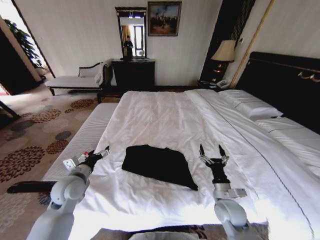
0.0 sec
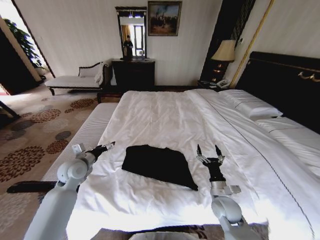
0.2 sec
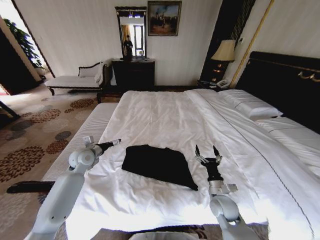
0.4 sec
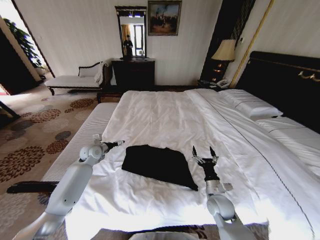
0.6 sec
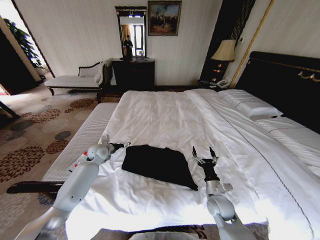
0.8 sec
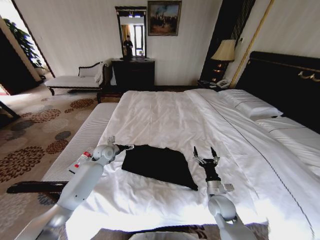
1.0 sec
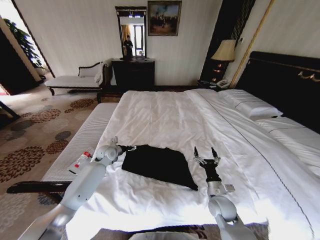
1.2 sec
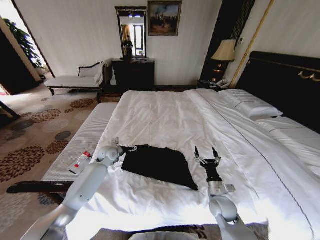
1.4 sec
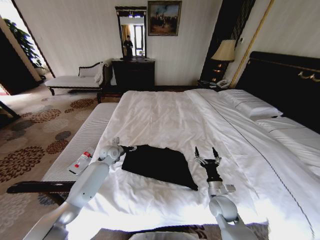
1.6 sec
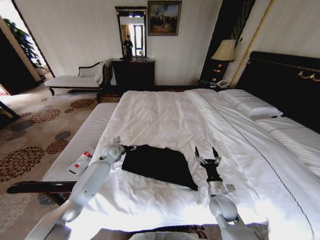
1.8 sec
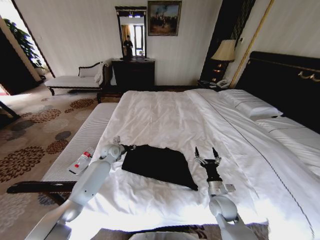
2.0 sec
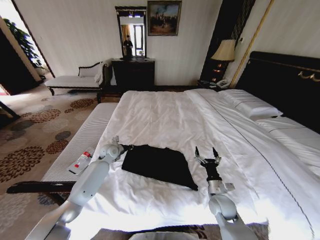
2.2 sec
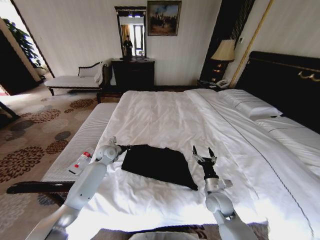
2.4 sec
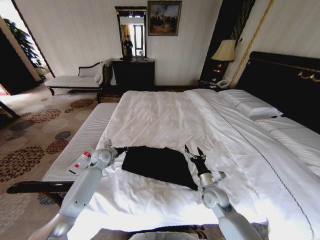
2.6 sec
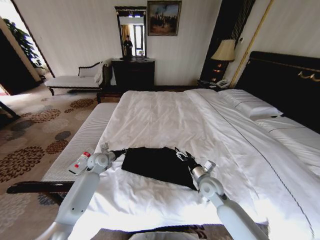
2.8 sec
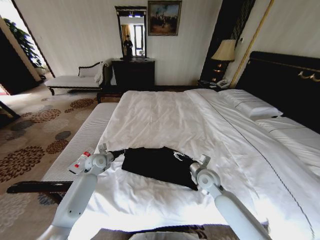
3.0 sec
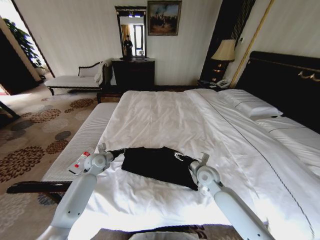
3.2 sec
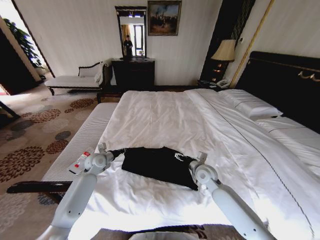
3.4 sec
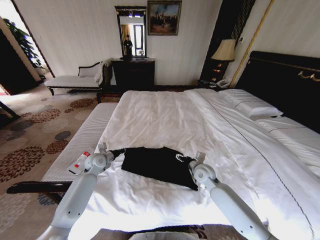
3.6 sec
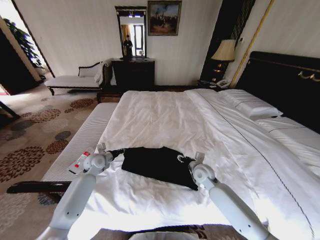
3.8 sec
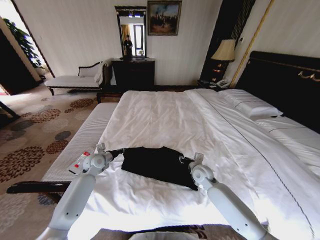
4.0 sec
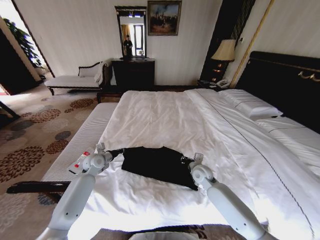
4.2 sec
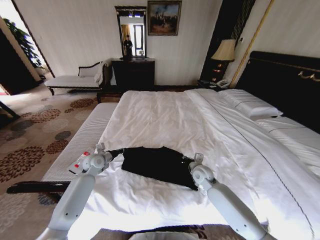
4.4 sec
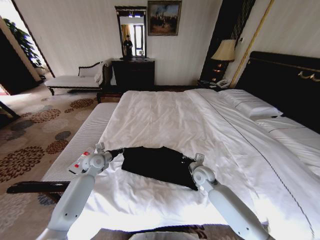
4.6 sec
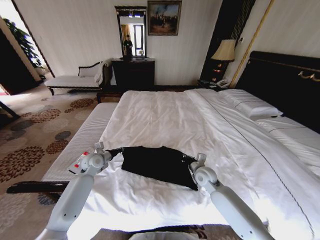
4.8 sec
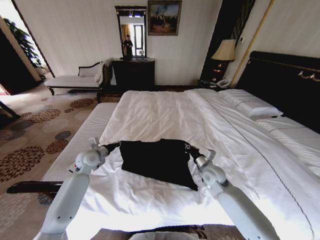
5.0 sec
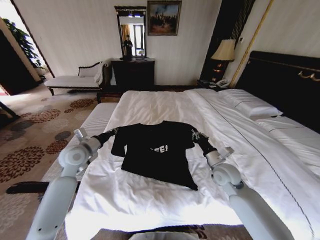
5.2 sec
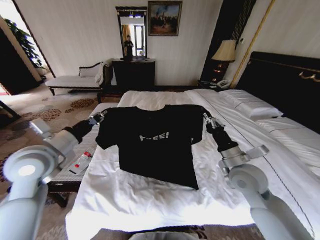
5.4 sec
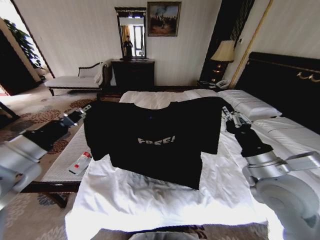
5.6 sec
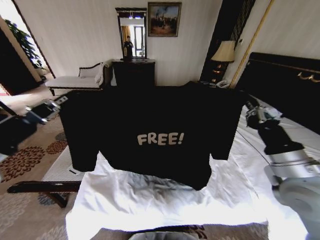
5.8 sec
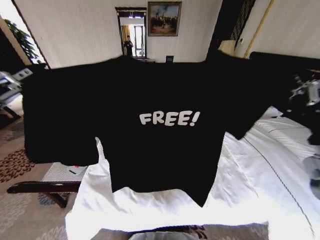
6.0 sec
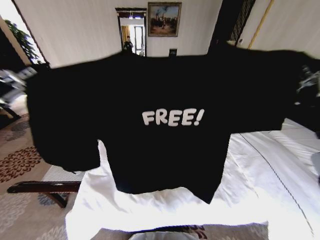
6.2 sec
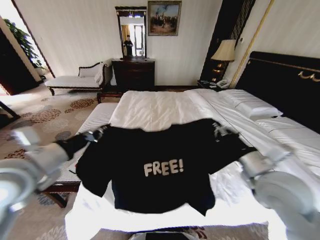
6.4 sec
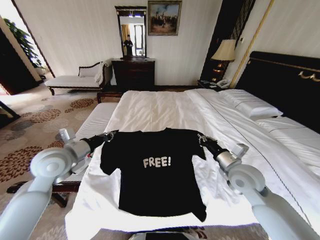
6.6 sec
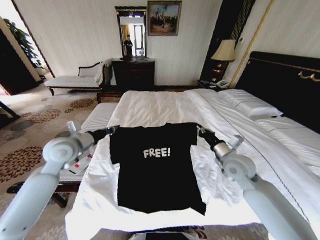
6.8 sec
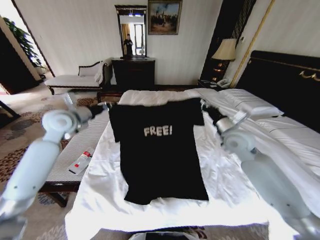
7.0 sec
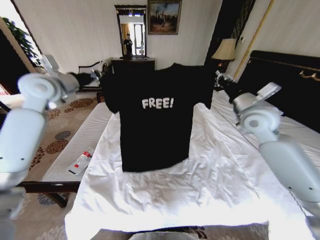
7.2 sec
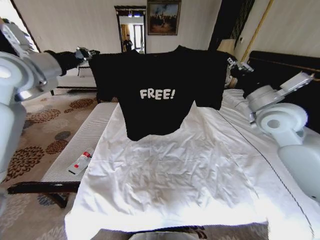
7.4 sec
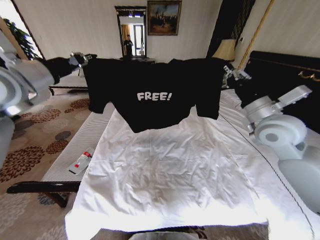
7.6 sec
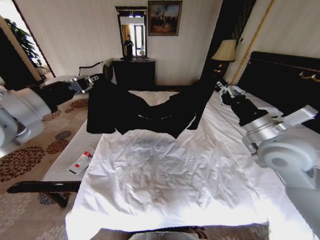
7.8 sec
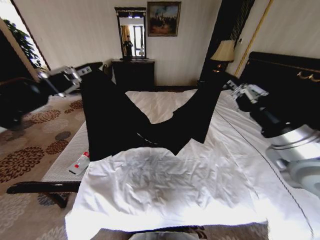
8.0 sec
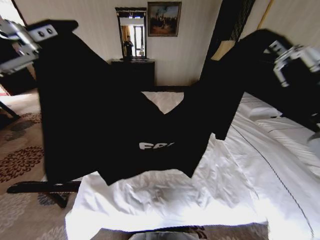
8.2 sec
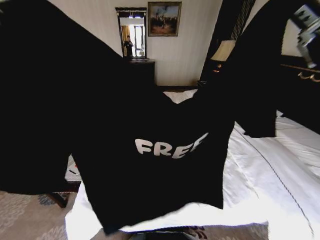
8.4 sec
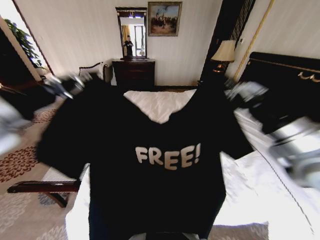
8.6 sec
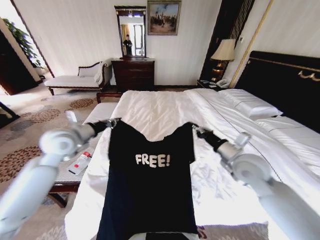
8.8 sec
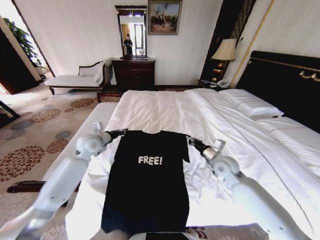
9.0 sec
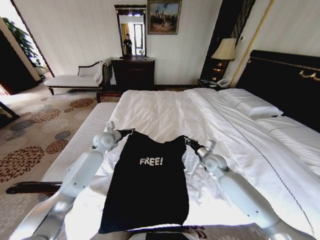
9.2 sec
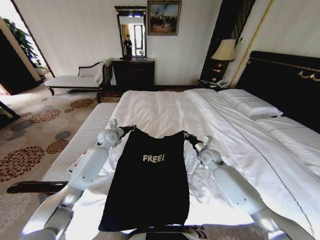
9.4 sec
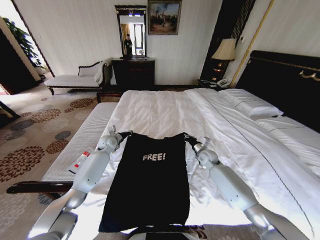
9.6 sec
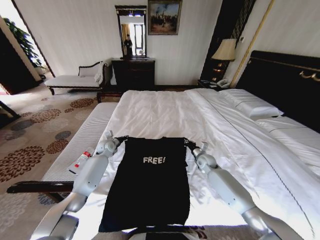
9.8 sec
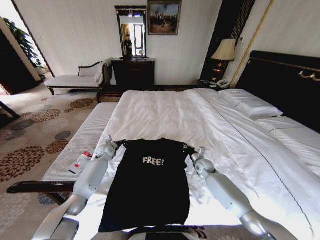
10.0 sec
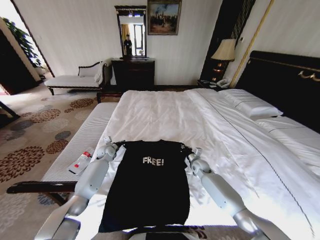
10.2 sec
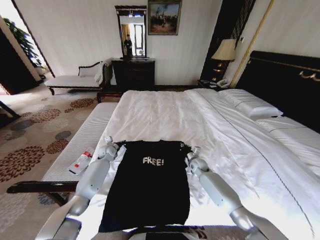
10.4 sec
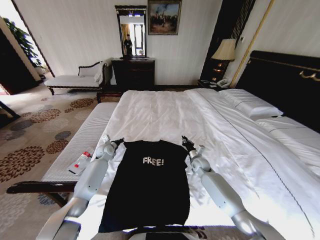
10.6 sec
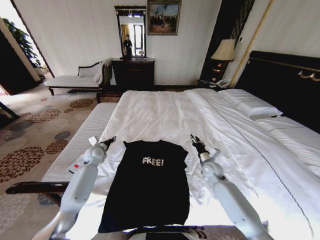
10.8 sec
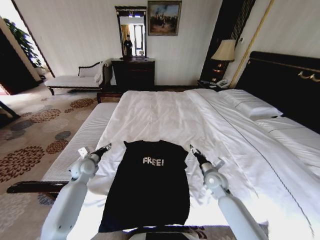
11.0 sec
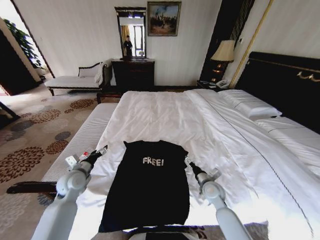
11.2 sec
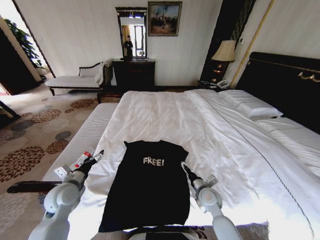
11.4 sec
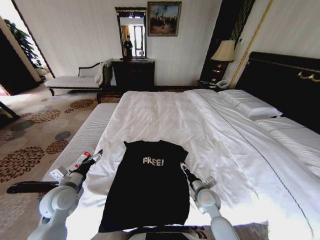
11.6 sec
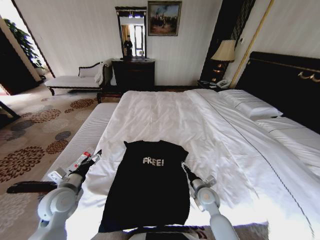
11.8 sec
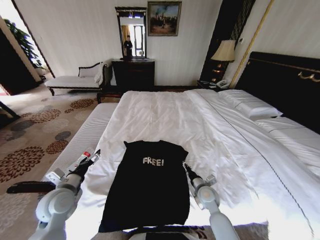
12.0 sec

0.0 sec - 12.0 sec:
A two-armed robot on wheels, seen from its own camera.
Task of the whole recording: Fold the clothes on the bed.
0.0 sec - 1.6 sec: The left gripper heads forward, covering some 20 cm.
1.6 sec - 3.0 sec: The left gripper moves to the left, some 5 cm, and closes, while the right gripper shifts some 10 cm forward and upward.
3.0 sec - 4.4 sec: The right gripper closes up.
4.4 sec - 6.0 sec: The right gripper goes roughly 40 cm upward, backward and to the right. Meanwhile the left gripper goes some 50 cm upward and backward.
6.0 sec - 7.6 sec: Both grippers travel together forward, roughly 20 cm.
7.6 sec - 9.0 sec: The two grippers go approximately 25 cm downward.
9.0 sec - 10.4 sec: Both grippers move downward and forward, about 20 cm.
10.4 sec - 12.0 sec: The right gripper is displaced backward by approximately 20 cm, and opens; the left gripper goes roughly 30 cm backward, and opens.

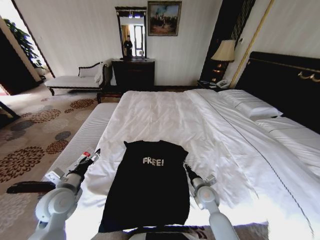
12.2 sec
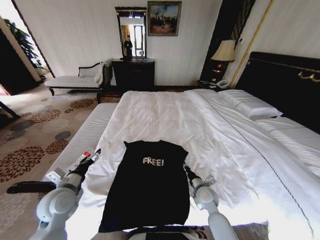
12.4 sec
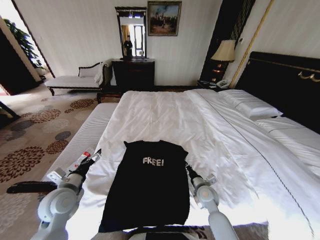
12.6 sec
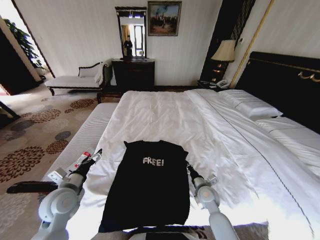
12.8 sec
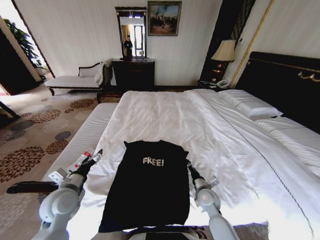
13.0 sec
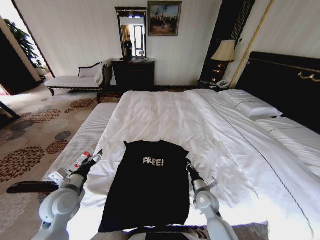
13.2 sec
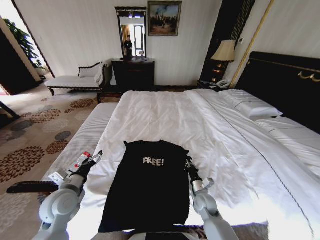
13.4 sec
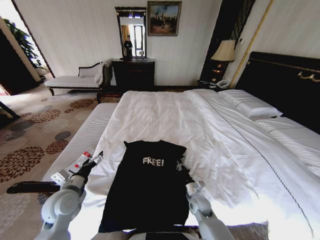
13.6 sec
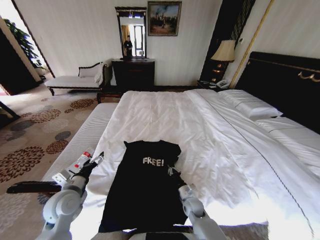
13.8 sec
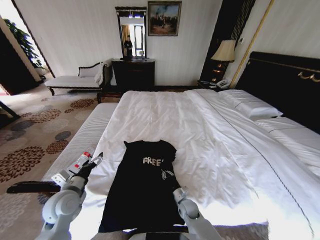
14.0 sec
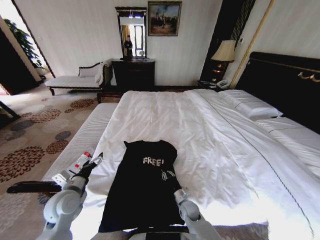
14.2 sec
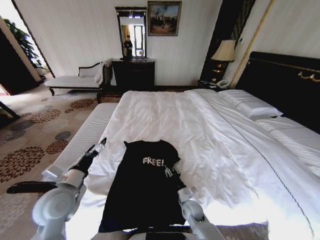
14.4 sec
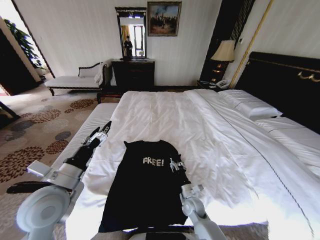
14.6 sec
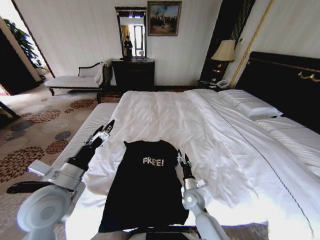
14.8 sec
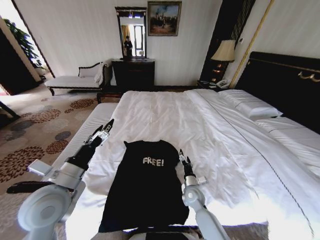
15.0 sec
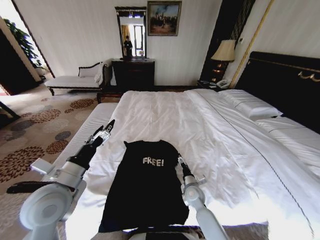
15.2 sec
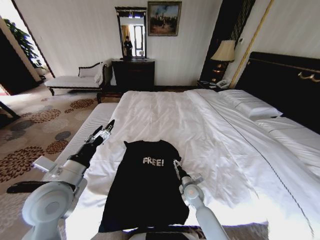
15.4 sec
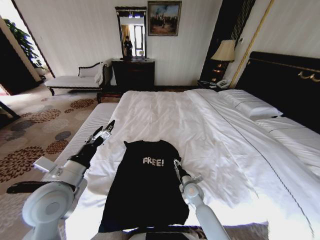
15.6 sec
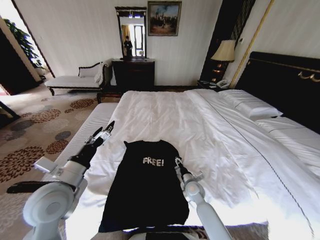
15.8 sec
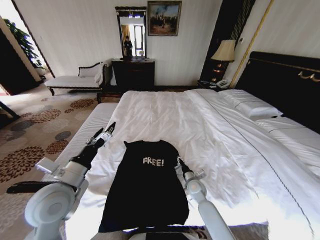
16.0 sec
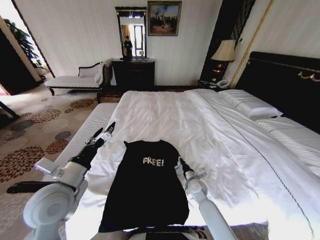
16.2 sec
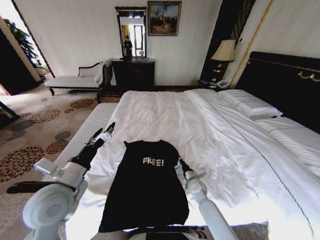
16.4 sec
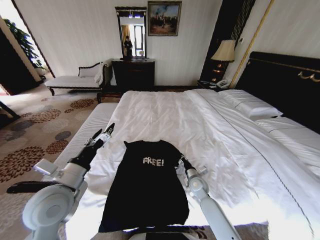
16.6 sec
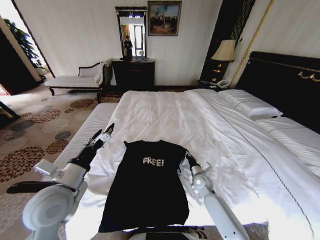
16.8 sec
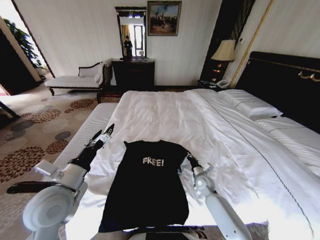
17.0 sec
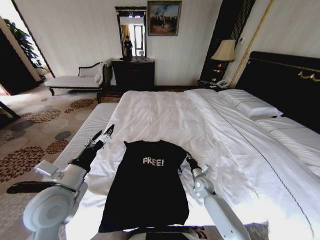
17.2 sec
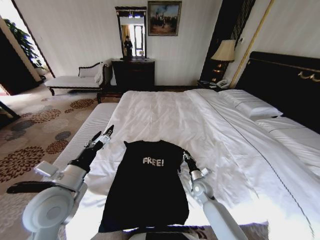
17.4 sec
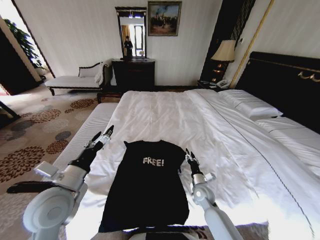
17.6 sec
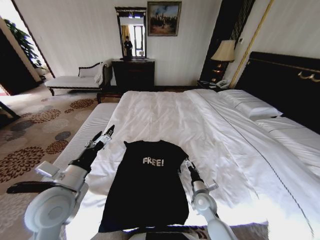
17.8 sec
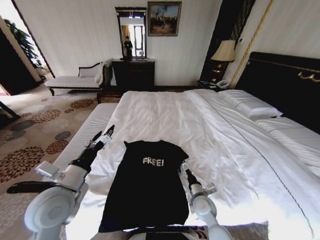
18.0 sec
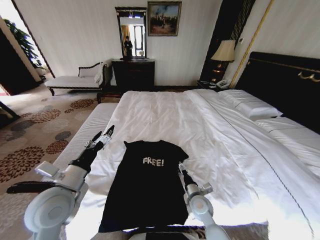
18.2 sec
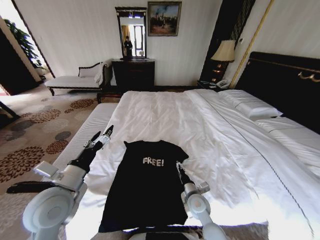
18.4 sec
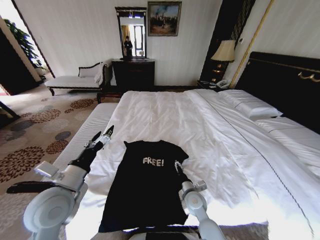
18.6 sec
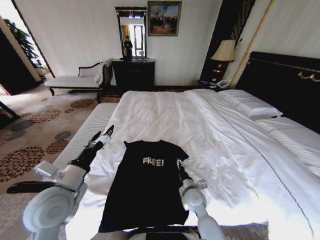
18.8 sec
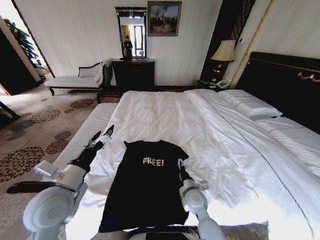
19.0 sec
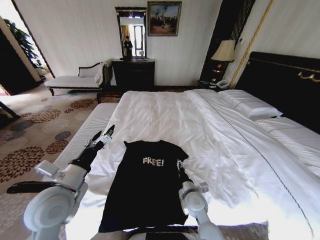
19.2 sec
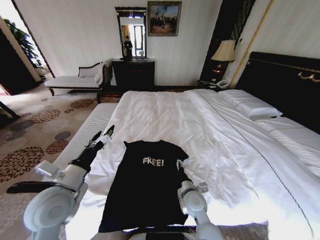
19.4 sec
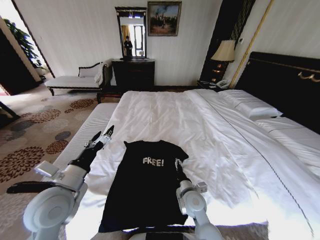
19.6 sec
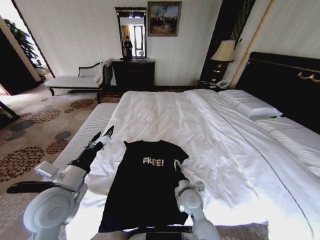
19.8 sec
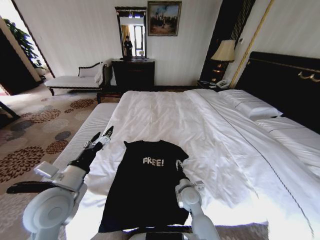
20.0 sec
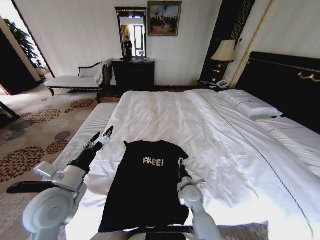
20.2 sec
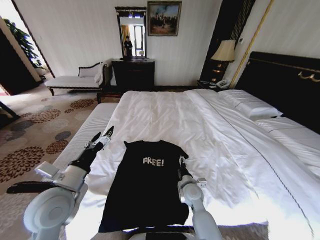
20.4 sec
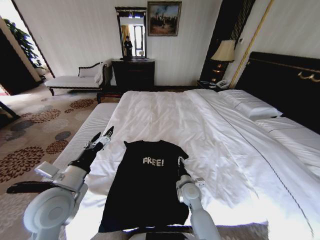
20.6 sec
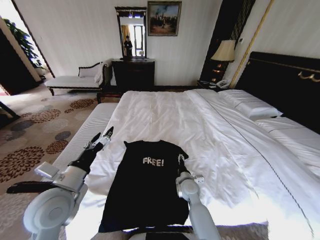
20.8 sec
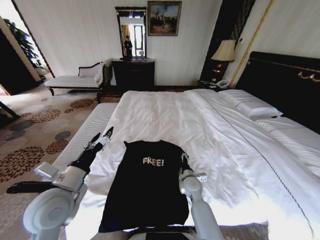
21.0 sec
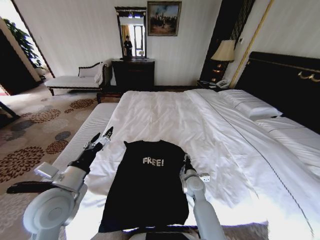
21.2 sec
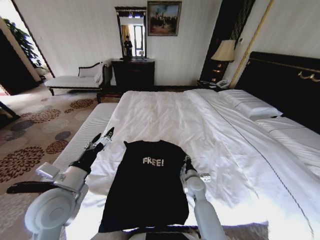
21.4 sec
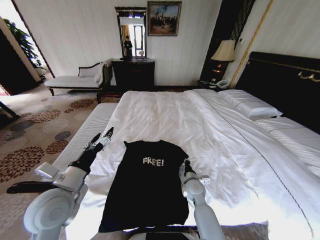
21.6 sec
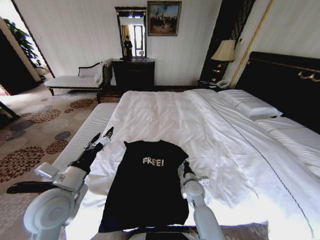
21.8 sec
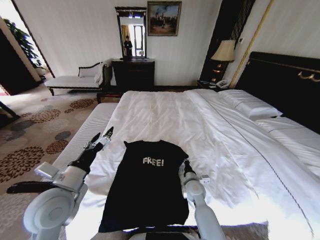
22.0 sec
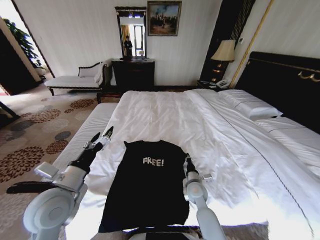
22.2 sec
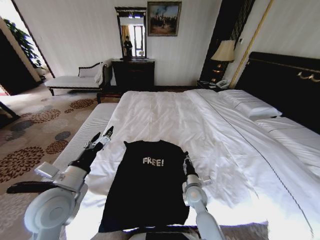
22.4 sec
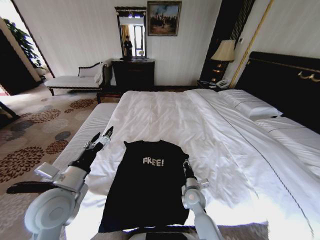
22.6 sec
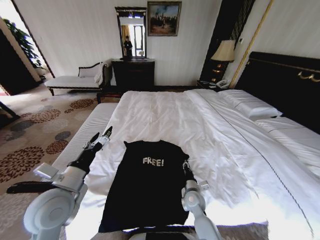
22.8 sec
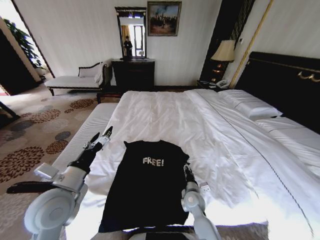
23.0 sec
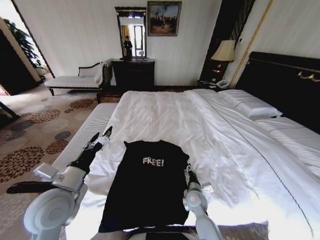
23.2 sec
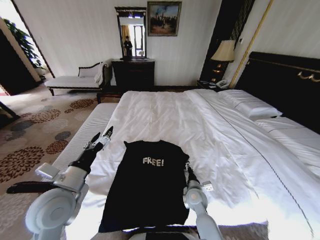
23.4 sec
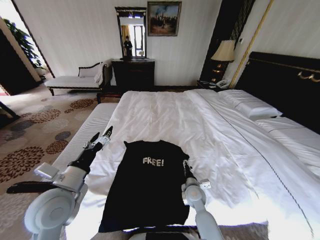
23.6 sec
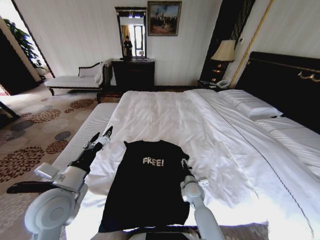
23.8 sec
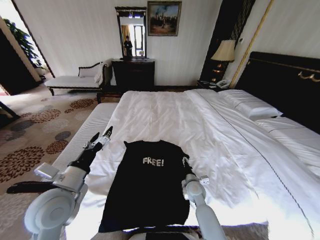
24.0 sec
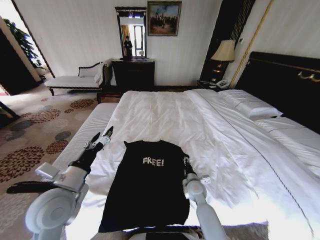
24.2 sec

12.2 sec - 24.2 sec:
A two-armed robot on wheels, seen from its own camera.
Task of the whole recording: Fold the clothes on the bed.
12.2 sec - 13.8 sec: The right gripper moves downward and to the left, roughly 10 cm, and closes.
13.8 sec - 15.2 sec: Both grippers move upward, about 10 cm. The right gripper opens up.
15.2 sec - 16.6 sec: The right gripper shifts by about 5 cm, and closes.
16.6 sec - 18.2 sec: The right gripper shifts roughly 10 cm backward, and opens.
18.2 sec - 19.8 sec: The right gripper changes place by approximately 5 cm.
19.8 sec - 21.2 sec: The right gripper goes approximately 5 cm forward.
21.2 sec - 22.6 sec: The right gripper shifts by some 5 cm, and closes.
22.6 sec - 24.2 sec: The right gripper opens up.
